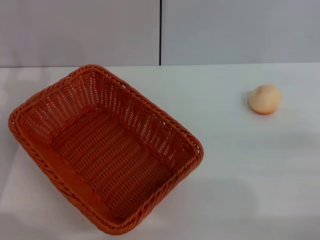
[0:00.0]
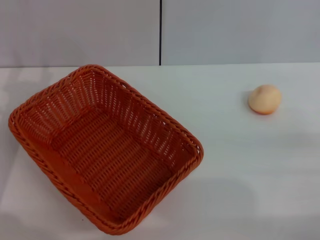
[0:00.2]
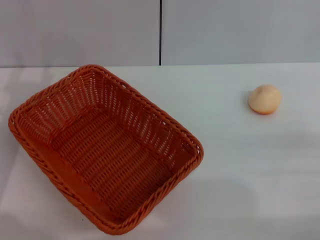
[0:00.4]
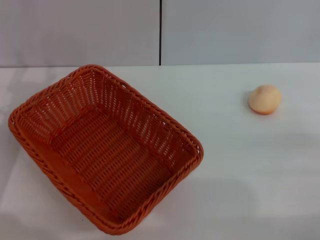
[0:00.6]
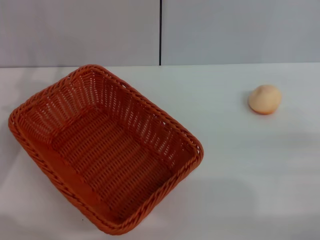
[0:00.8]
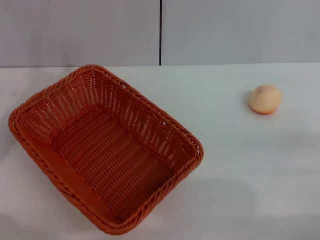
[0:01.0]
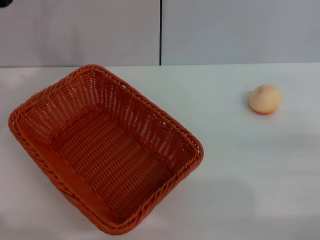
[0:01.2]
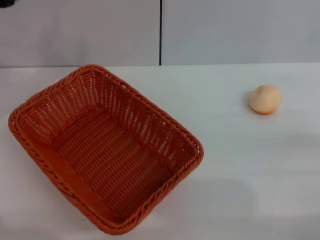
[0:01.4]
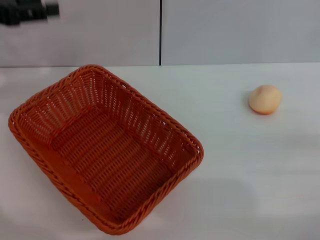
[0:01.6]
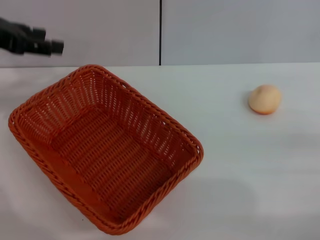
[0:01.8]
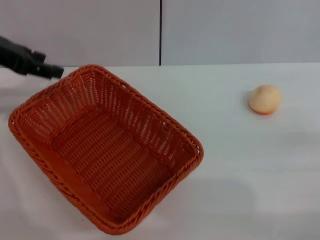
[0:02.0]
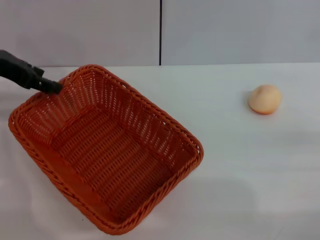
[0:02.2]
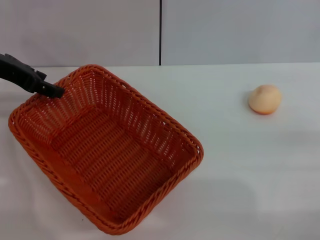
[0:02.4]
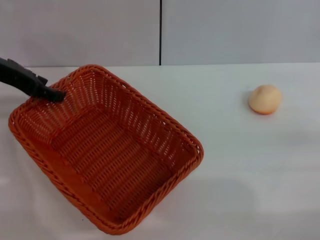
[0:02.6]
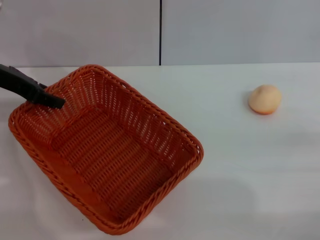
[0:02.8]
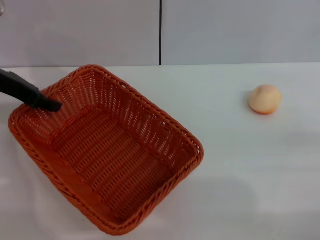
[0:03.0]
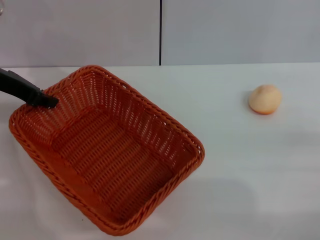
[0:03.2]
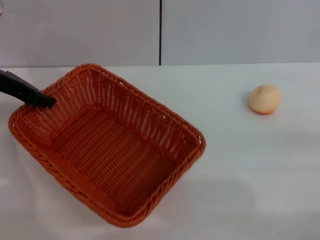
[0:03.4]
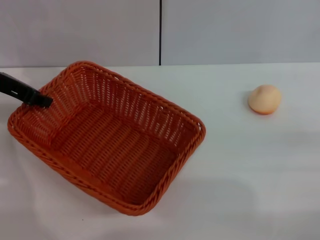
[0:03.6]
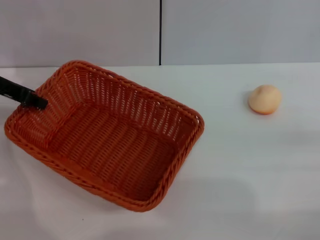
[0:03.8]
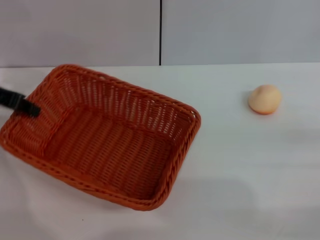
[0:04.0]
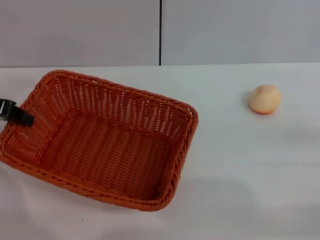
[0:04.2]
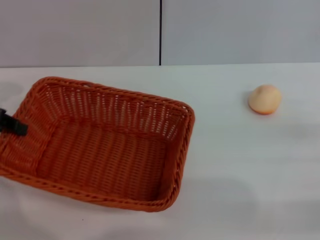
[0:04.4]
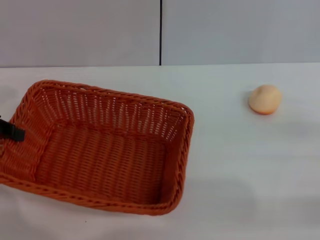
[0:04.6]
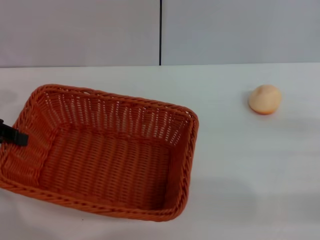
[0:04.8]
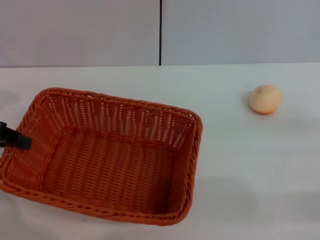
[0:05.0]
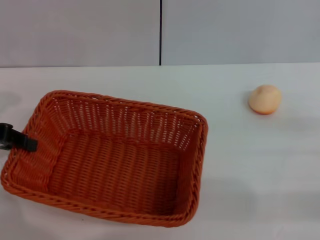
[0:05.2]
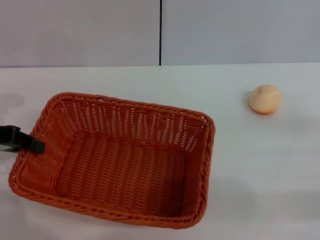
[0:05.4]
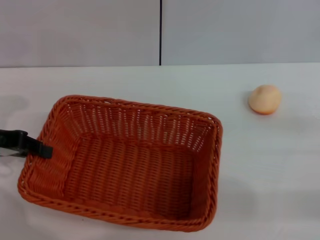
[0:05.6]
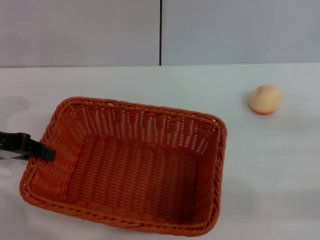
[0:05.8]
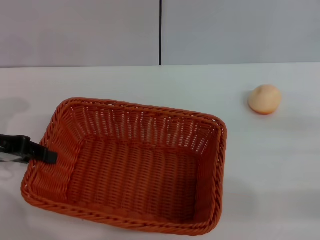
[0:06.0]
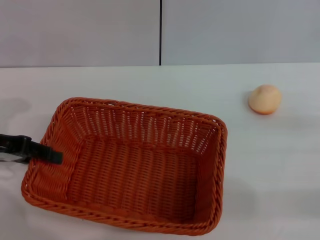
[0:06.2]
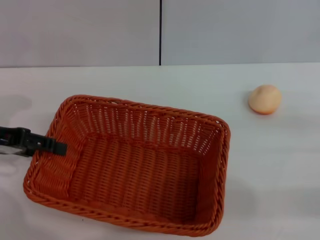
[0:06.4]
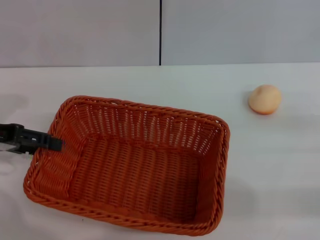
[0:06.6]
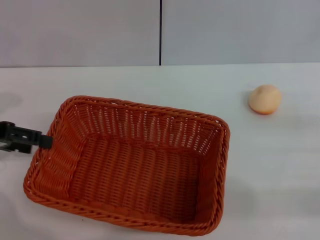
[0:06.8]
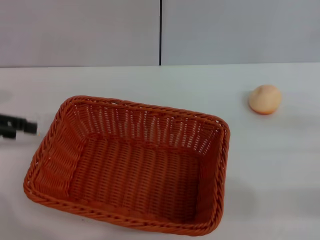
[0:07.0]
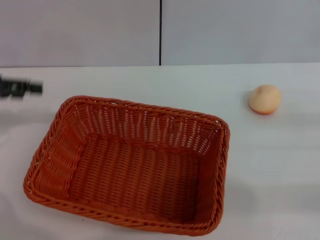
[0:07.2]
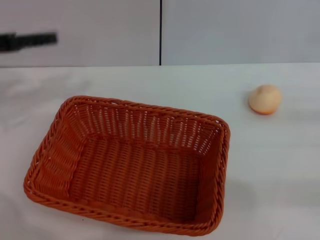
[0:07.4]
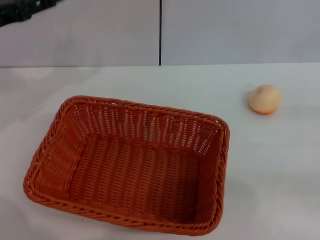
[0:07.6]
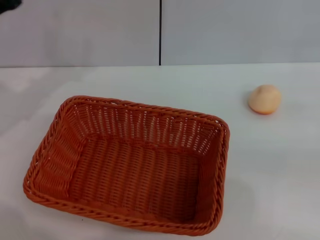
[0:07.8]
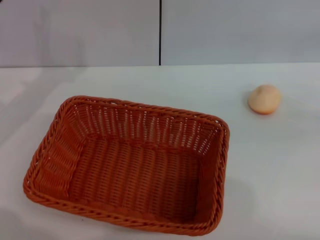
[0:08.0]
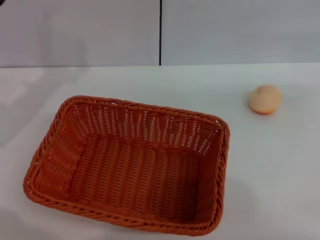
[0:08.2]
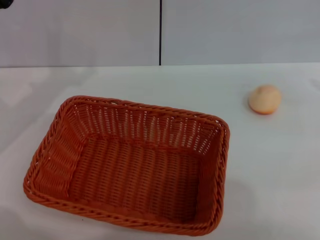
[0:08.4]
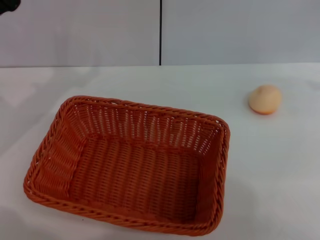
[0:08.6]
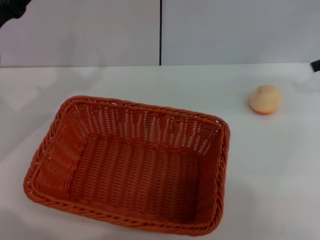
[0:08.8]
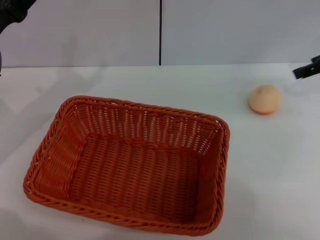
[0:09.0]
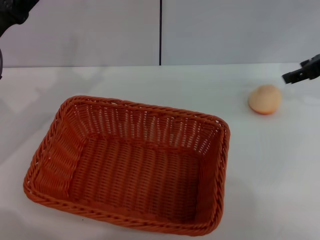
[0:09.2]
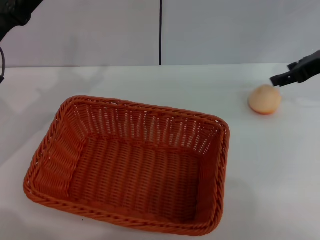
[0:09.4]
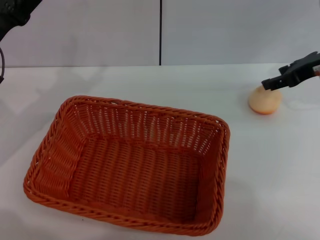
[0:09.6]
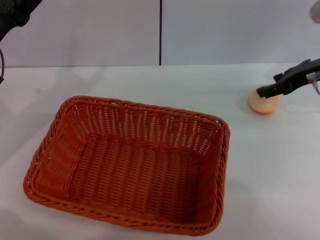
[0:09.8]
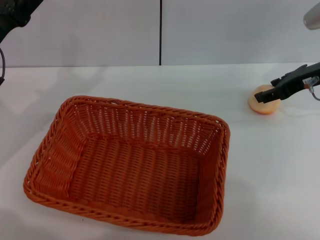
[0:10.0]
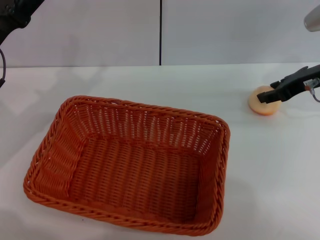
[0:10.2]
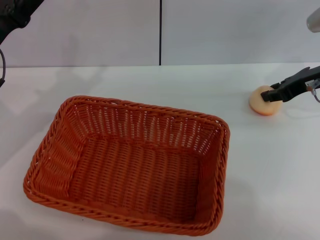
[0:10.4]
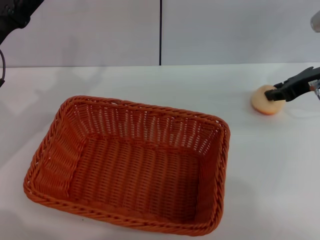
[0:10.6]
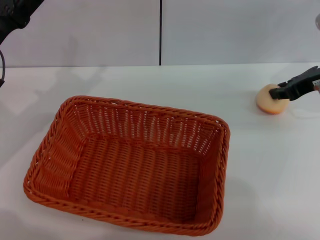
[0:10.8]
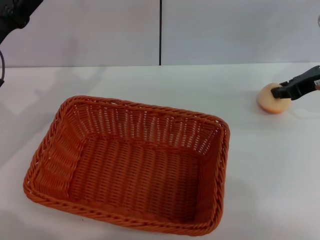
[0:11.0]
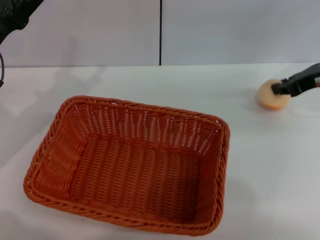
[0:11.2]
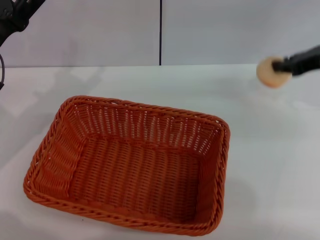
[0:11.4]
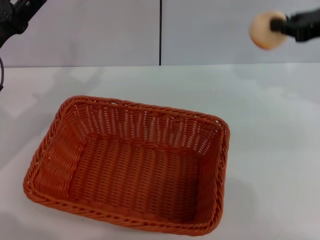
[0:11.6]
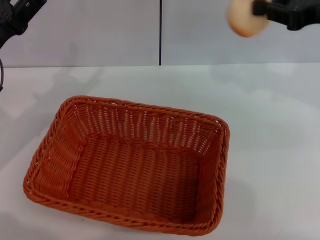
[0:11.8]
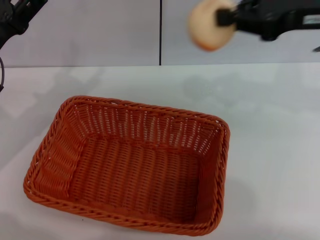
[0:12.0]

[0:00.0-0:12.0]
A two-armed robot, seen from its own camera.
Step, 0:00.0 to 0:07.0: Move the basket to the center of view with the left gripper.
Step, 0:07.2 to 0:11.2: Pick up the egg yolk pastry with the right gripper.
0:00.0 to 0:01.6: The left gripper goes some 15 cm upward and forward.
0:01.6 to 0:03.0: The left gripper moves roughly 5 cm.
0:03.0 to 0:04.4: The left gripper is displaced to the left and backward by roughly 10 cm, and closes.
0:06.0 to 0:07.6: The right gripper changes place by approximately 5 cm. The left gripper travels forward by approximately 5 cm, and opens its fingers.
0:07.6 to 0:09.0: The right gripper heads forward, to the left and upward, covering some 20 cm, while the left gripper moves approximately 5 cm.
0:09.0 to 0:10.4: The right gripper moves downward, some 5 cm.
0:10.4 to 0:12.0: The right gripper goes about 10 cm upward, and closes.

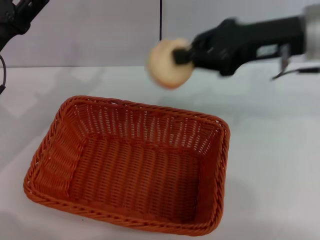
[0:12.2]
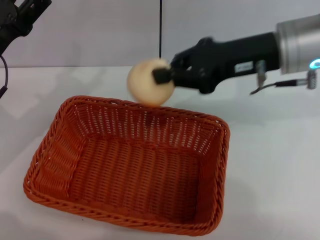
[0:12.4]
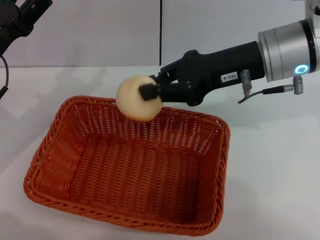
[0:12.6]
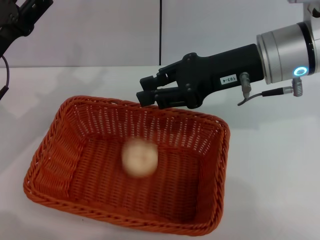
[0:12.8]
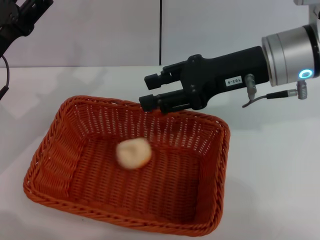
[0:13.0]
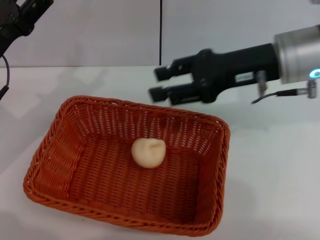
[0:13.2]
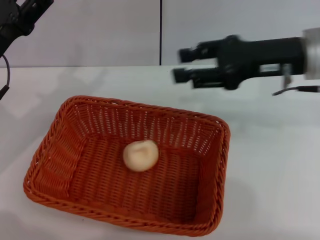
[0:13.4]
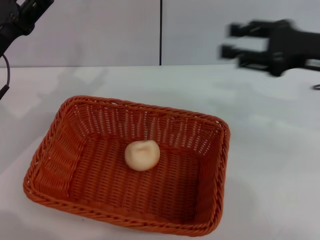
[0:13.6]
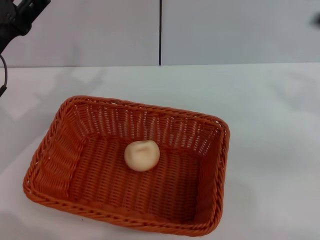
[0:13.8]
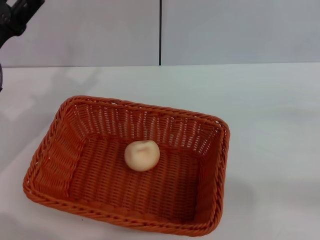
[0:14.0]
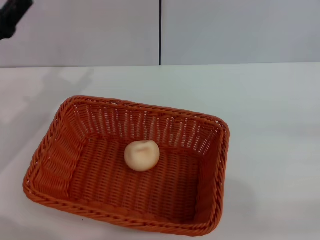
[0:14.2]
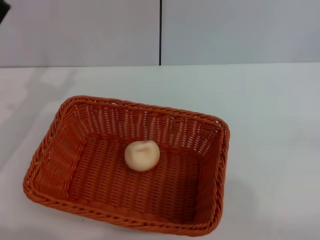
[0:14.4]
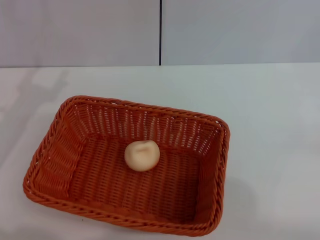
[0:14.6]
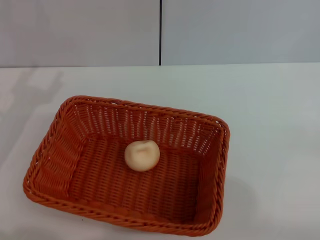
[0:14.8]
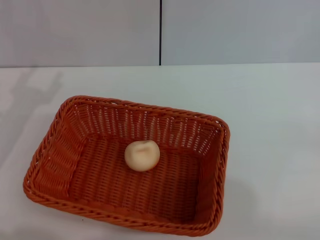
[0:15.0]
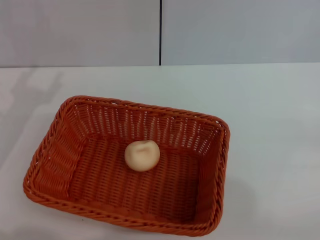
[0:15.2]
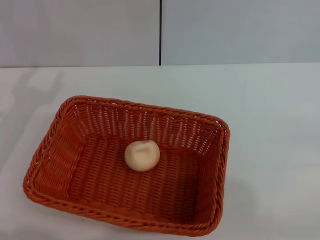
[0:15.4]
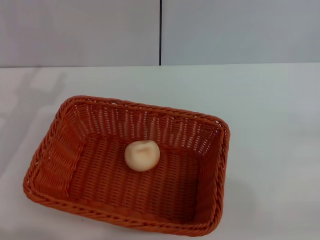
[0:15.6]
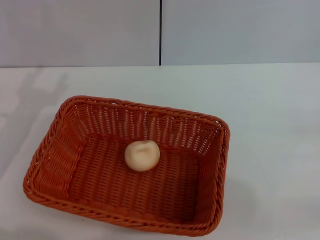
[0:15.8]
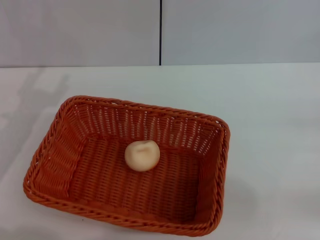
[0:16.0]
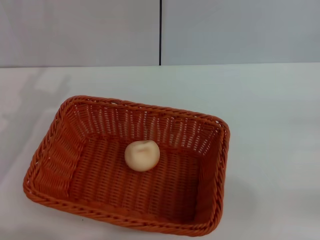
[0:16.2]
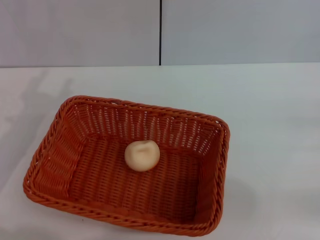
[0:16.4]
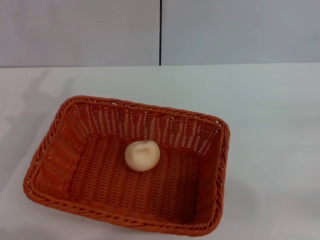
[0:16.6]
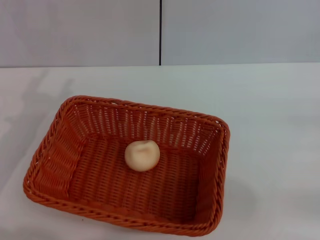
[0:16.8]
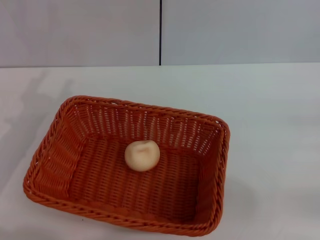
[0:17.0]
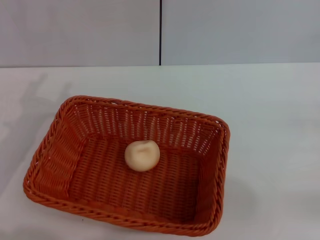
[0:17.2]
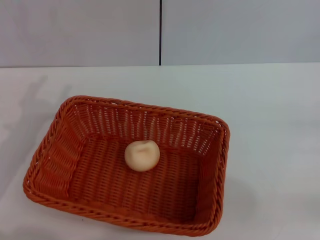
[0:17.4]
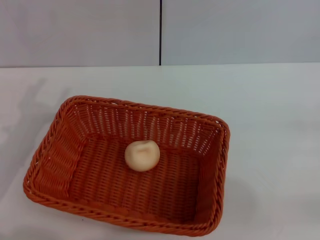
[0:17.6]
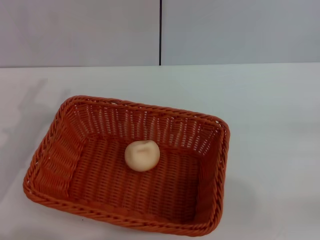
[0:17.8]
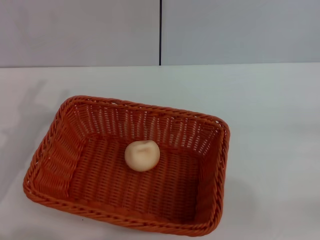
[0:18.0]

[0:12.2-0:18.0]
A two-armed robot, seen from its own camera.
Step, 0:12.2 to 0:13.0: Place the egg yolk pastry into the basket with the right gripper.
0:12.2 to 0:13.6: The right gripper shifts about 10 cm to the right, and opens.
0:13.6 to 0:15.0: The right gripper shifts approximately 25 cm to the right, backward and downward; the left gripper shifts by roughly 5 cm.
